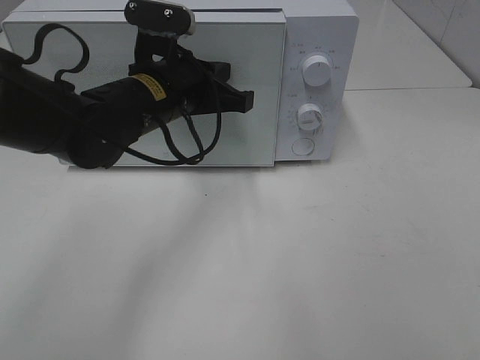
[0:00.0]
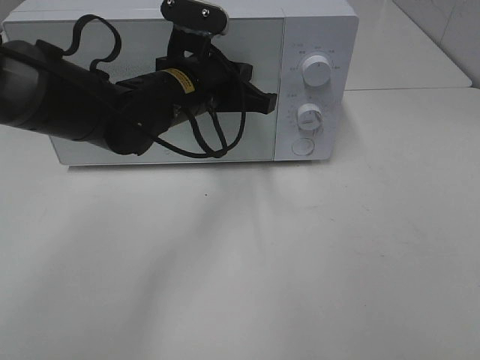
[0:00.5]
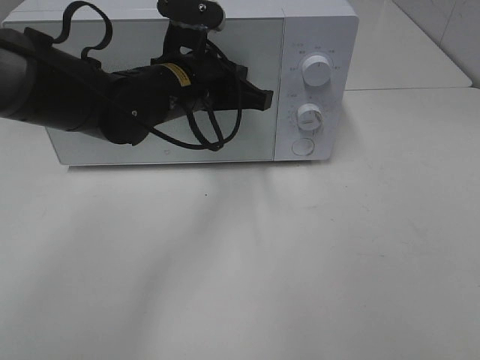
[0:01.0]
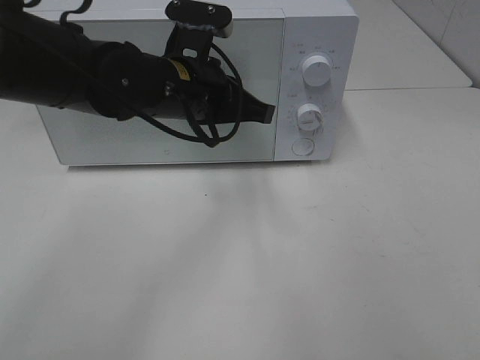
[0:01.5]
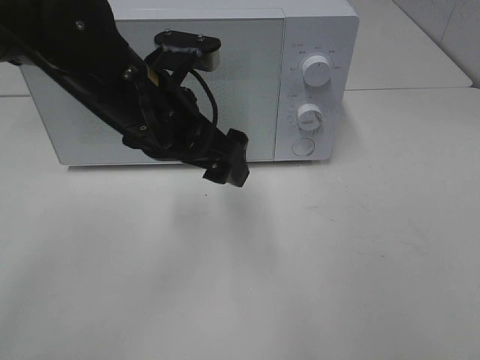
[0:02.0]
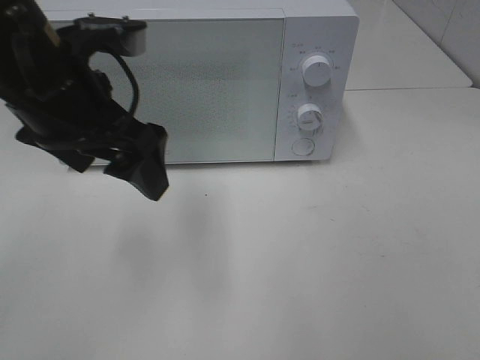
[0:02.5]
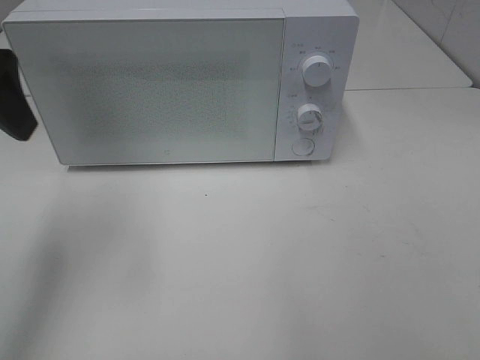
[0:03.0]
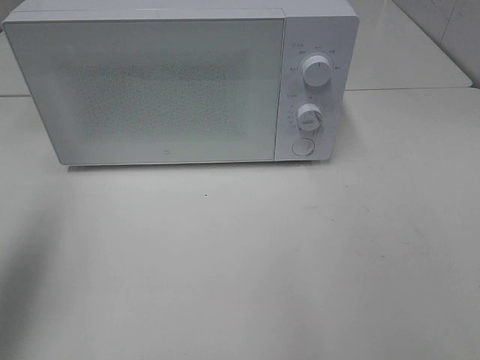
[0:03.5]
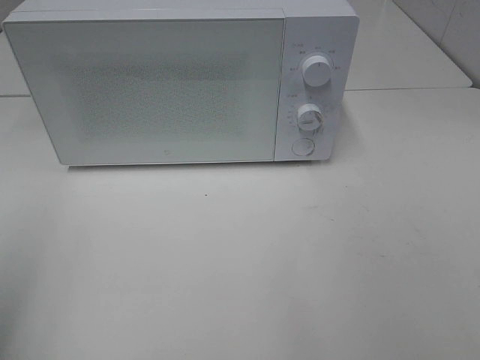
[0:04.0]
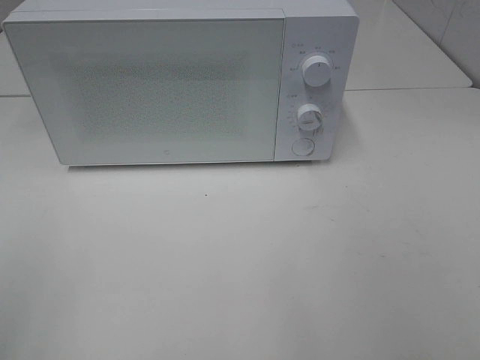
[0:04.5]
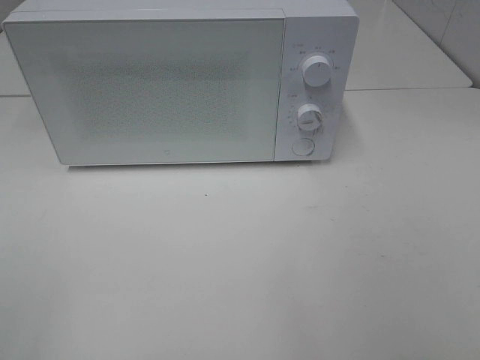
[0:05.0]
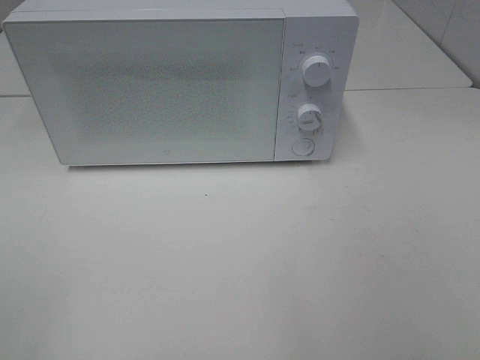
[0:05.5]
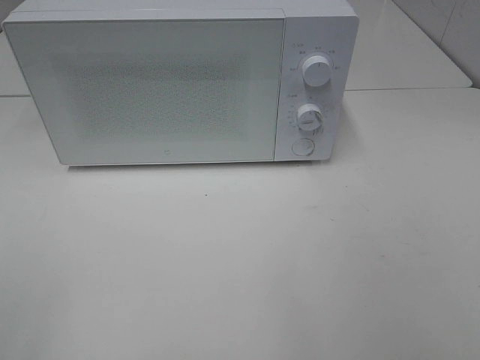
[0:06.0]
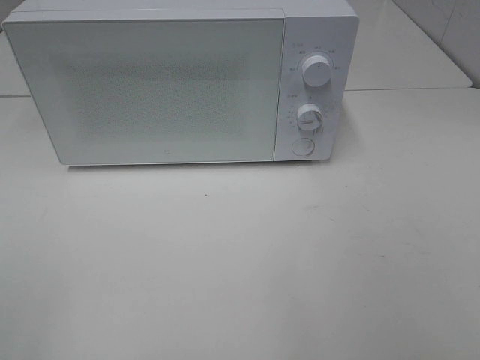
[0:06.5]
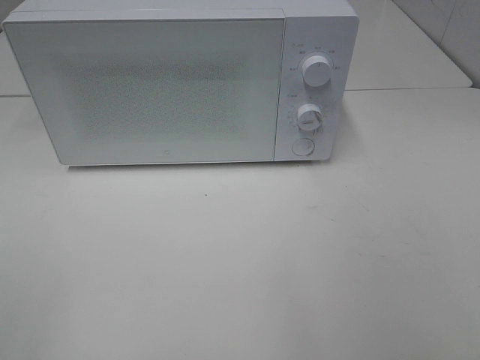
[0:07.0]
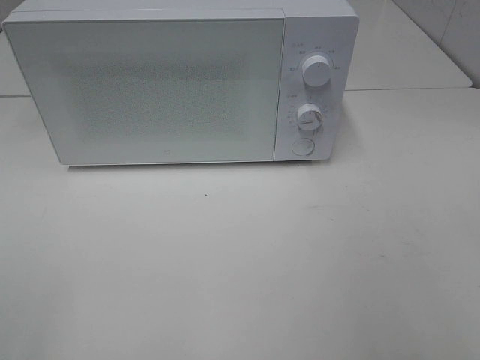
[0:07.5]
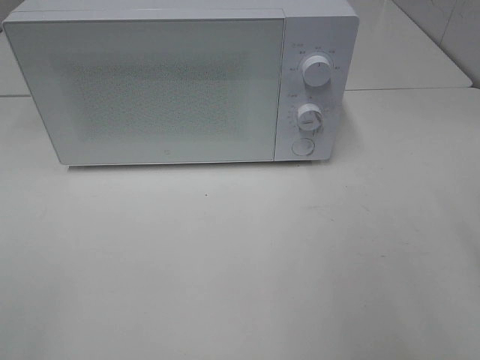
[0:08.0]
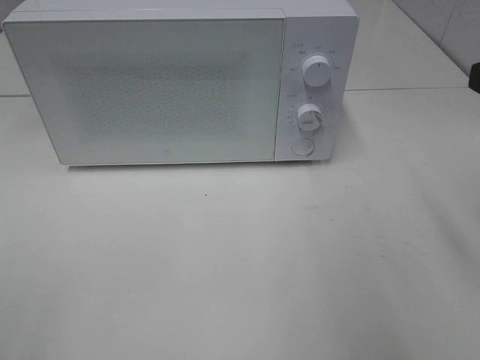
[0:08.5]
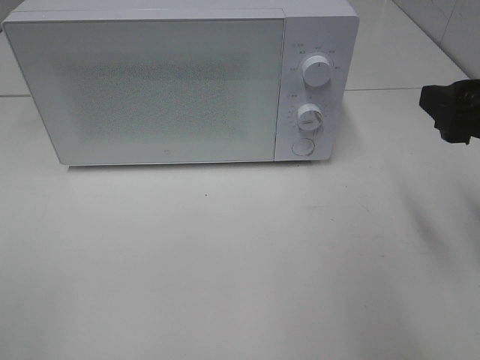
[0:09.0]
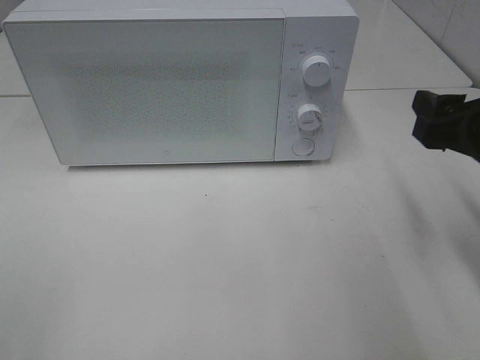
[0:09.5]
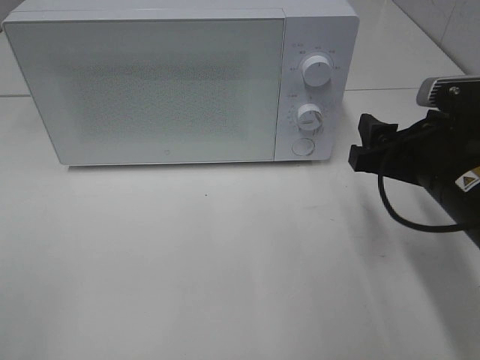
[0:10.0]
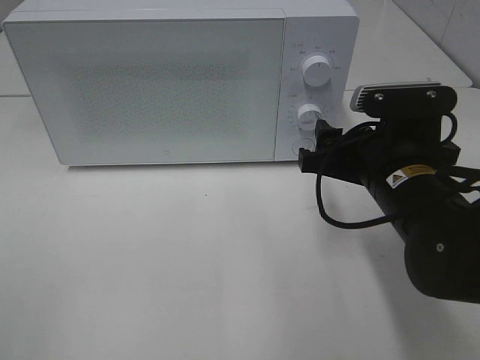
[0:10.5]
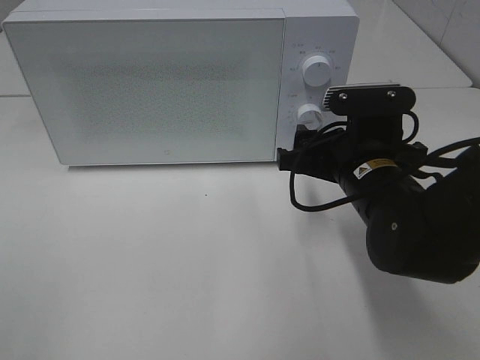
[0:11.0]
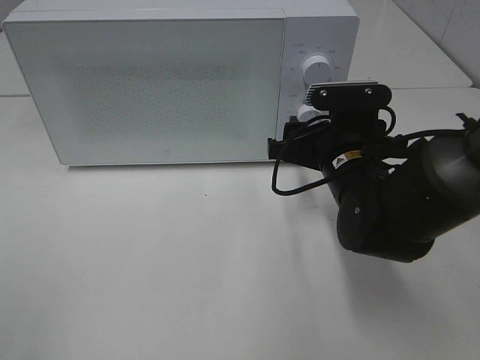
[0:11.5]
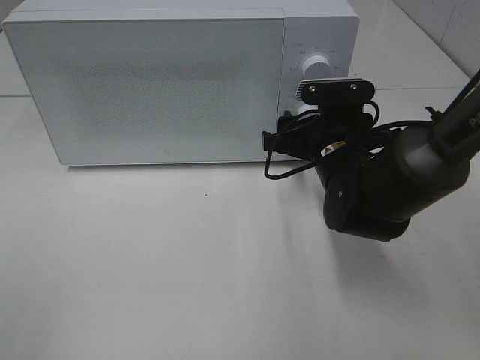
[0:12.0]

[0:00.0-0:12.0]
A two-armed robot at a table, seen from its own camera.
Task of the whole recording: Heat Sandwich.
0:00.0 to 0:02.0: The left gripper is displaced backward by approximately 5 cm, and opens its fingers.
0:02.0 to 0:04.0: The left gripper goes about 30 cm to the left and backward.
0:08.0 to 0:10.0: The right gripper heads downward, forward and to the left, covering approximately 20 cm.
0:10.0 to 0:12.0: The right gripper shifts about 15 cm forward, to the left and downward.

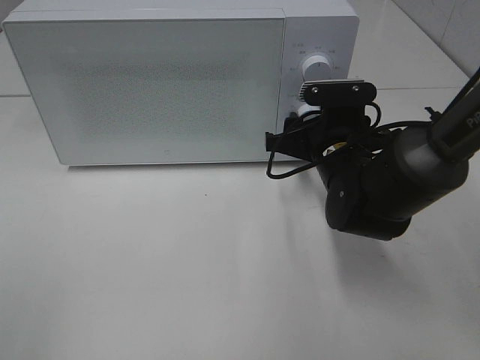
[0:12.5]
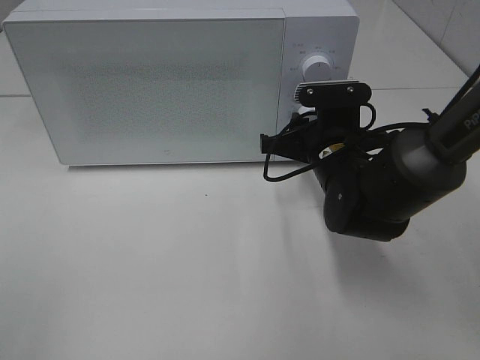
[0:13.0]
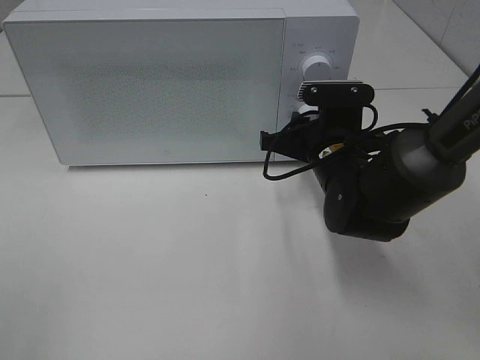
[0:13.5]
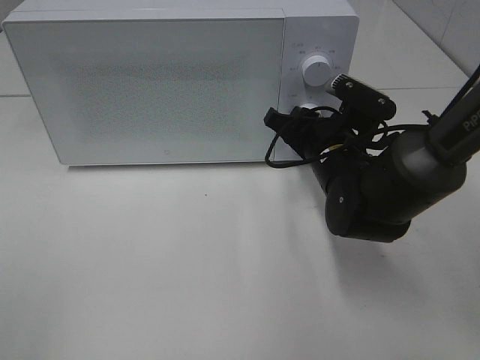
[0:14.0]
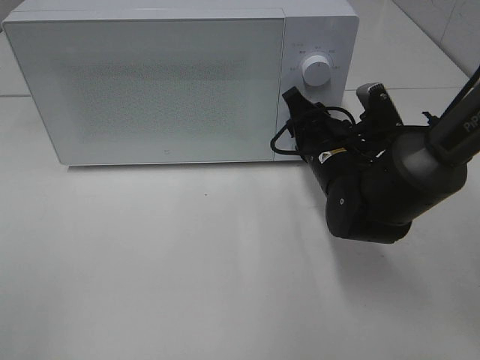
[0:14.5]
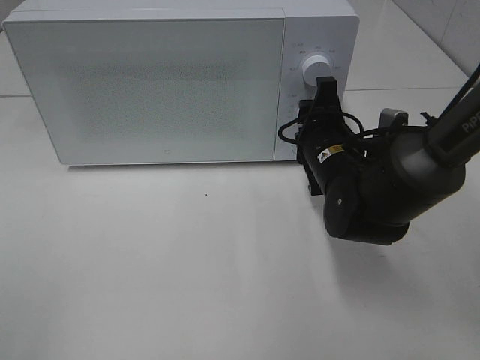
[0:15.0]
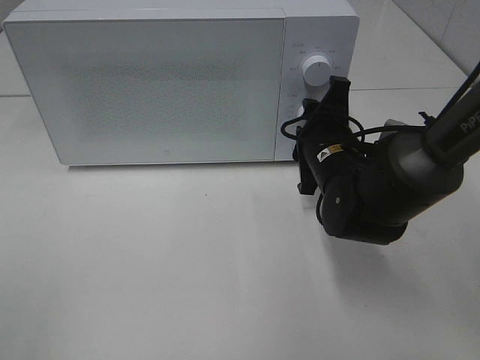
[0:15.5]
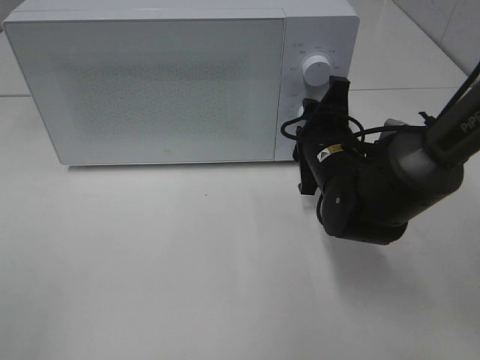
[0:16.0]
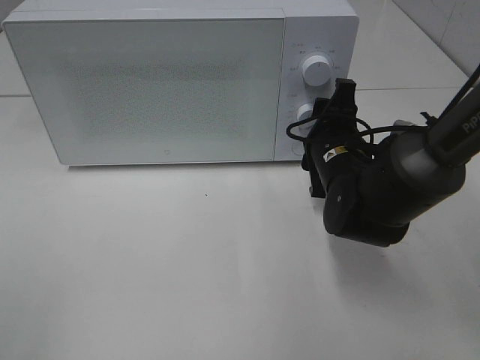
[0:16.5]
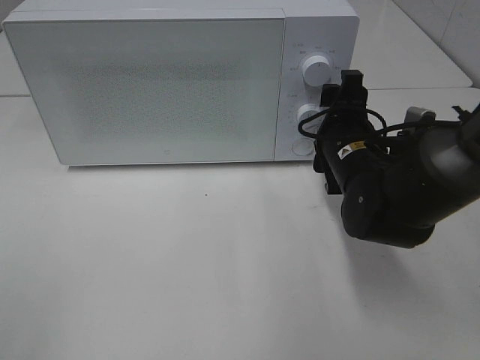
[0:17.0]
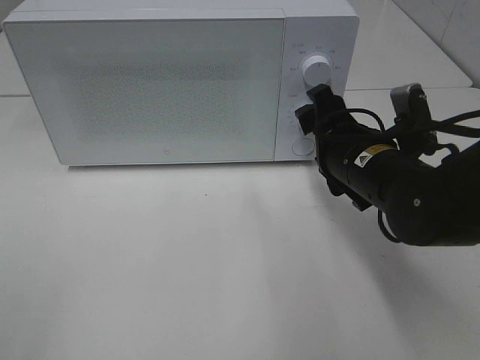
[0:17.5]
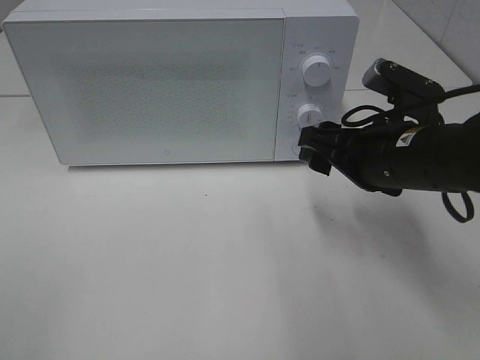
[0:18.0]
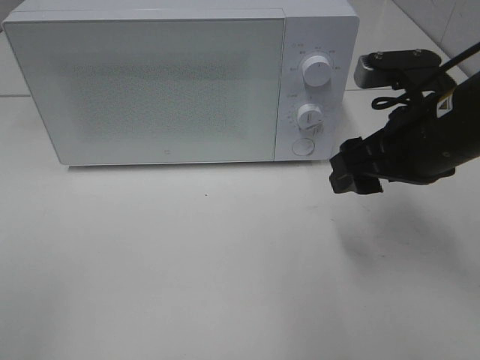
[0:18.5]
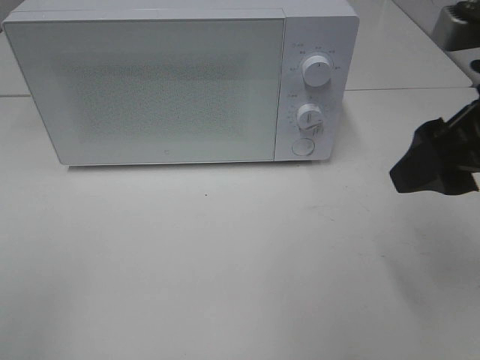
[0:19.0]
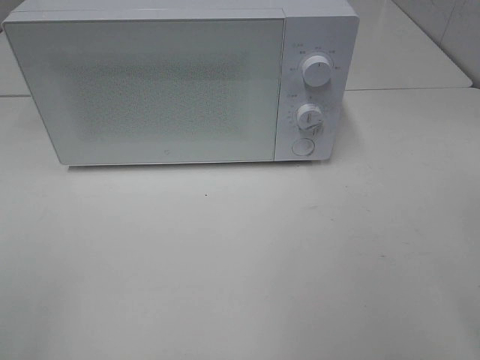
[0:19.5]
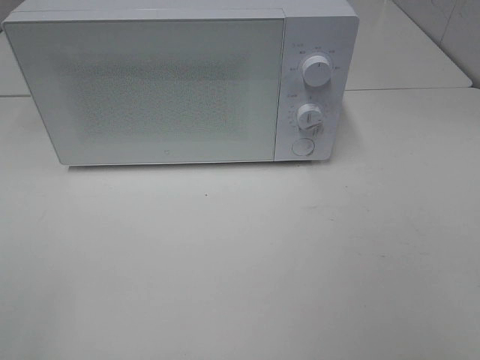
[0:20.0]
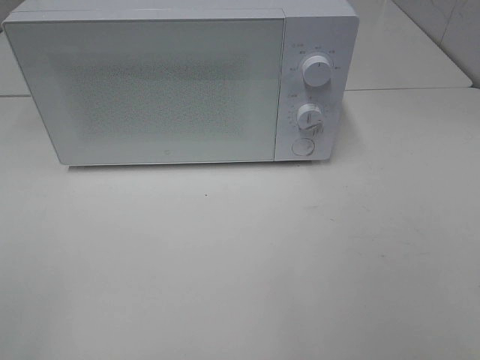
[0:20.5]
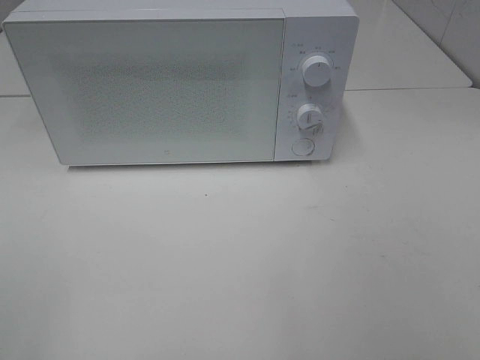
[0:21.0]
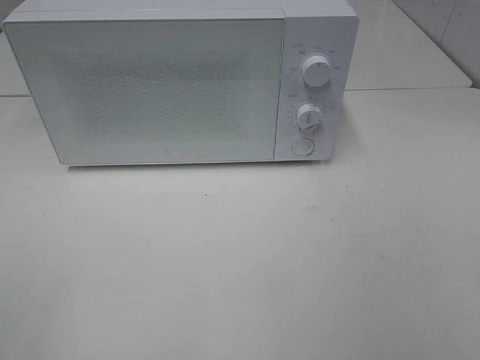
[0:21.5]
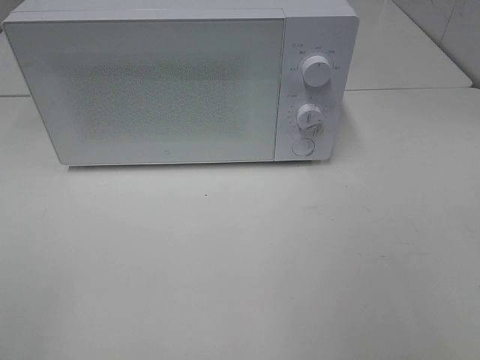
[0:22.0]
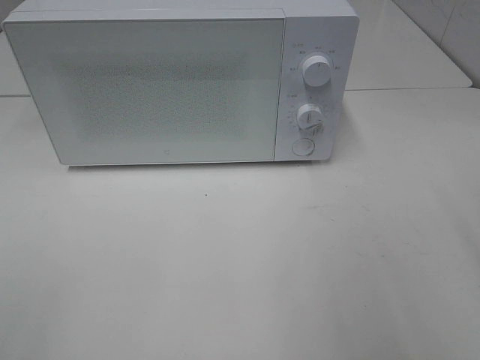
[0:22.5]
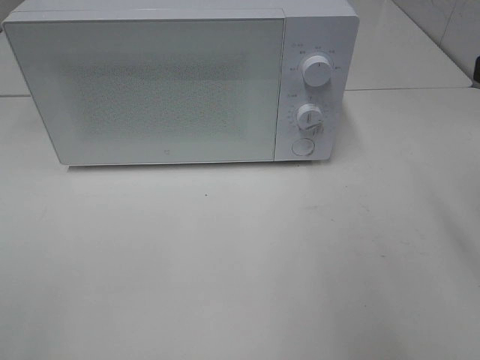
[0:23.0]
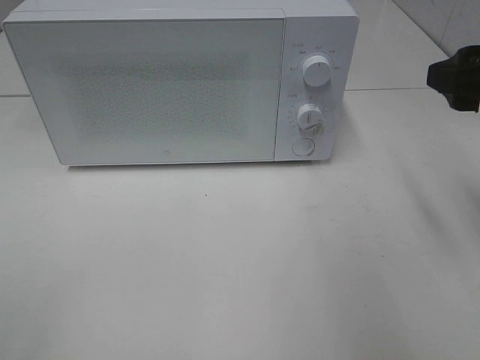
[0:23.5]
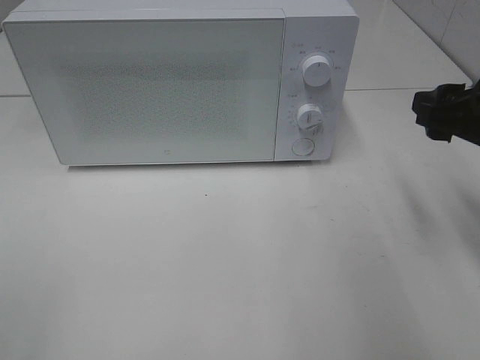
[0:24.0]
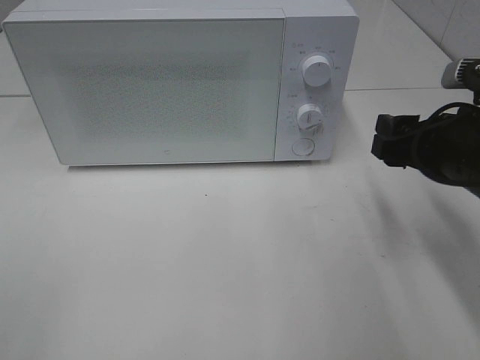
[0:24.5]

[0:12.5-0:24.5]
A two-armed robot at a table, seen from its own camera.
Task of the whole recording: Heat Sandwich.
Step, 0:12.5 to 0:16.5: Right hand: twist timer button.
0:16.5 to 0:18.5: The right gripper is displaced upward, backward and to the right by approximately 15 cm.
0:18.5 to 0:20.5: The right gripper heads backward and to the right, covering roughly 30 cm.
0:22.5 to 0:24.5: The right gripper travels downward and forward by about 15 cm.

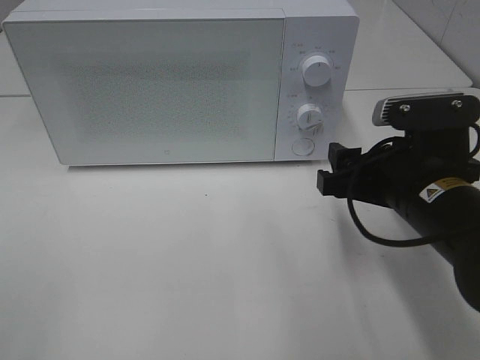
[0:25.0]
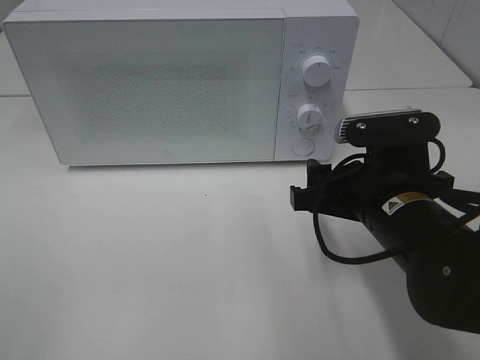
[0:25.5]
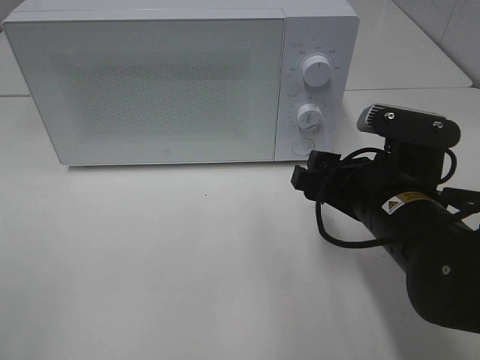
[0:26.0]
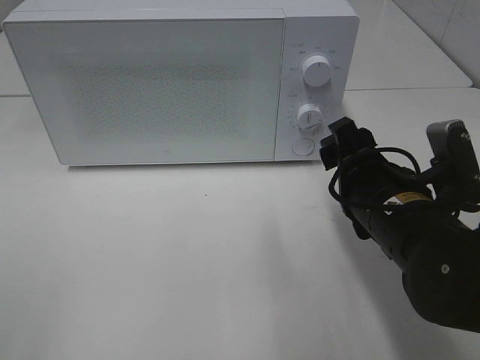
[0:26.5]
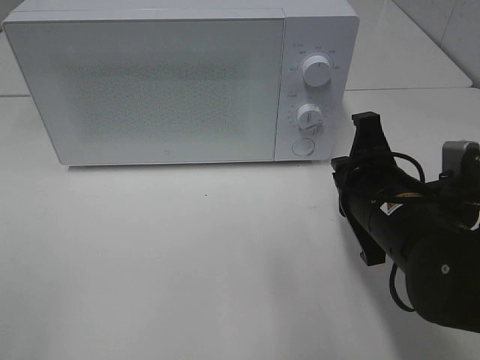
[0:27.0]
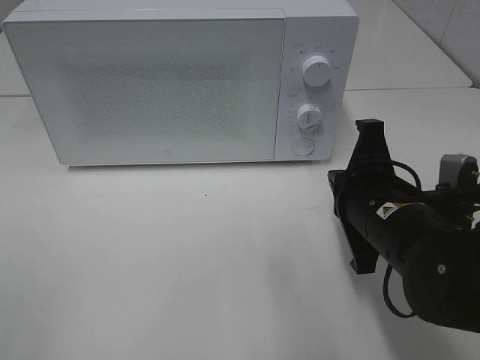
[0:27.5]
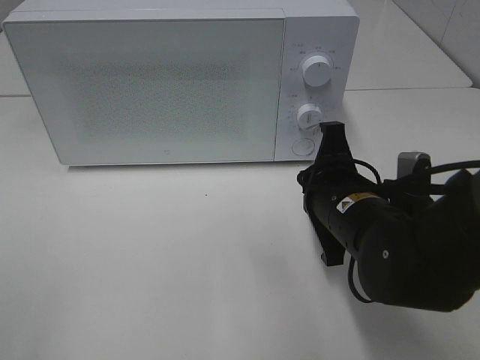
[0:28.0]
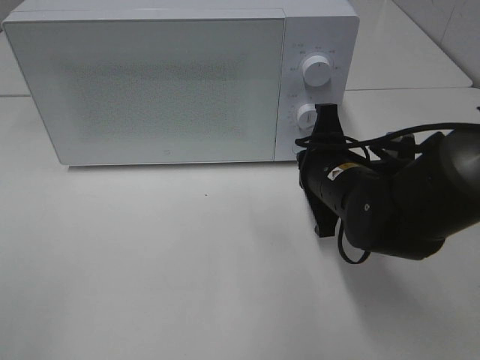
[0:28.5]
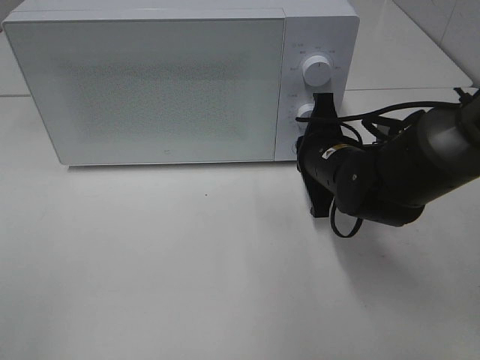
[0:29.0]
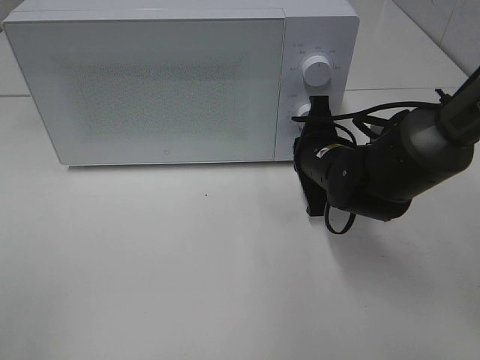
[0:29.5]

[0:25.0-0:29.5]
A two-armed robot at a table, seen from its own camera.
Task of the whole recording: Heat Sandwich.
0:25.0 to 0:27.0: The right gripper closes up.
0:27.0 to 0:29.5: The right gripper shifts about 10 cm forward.
